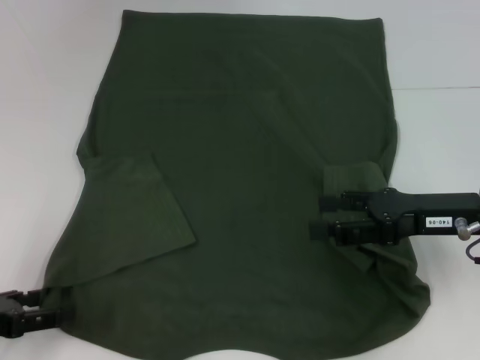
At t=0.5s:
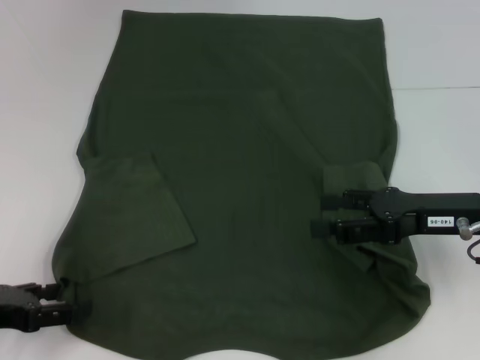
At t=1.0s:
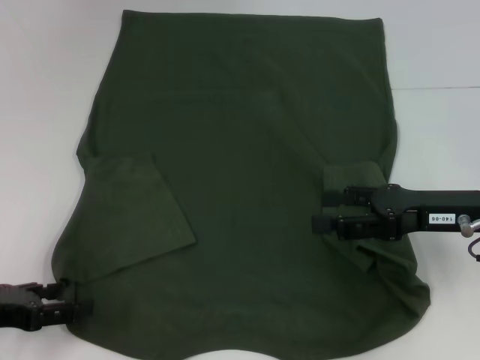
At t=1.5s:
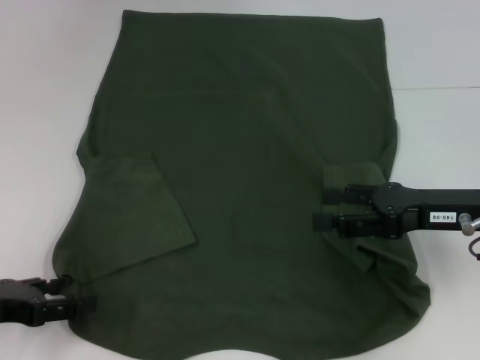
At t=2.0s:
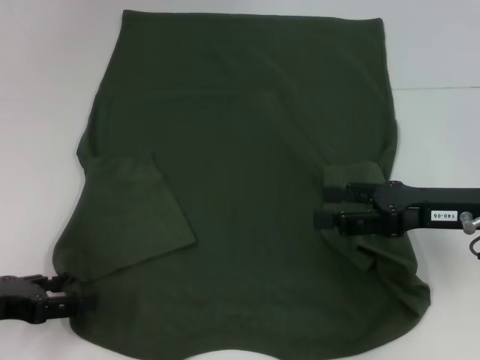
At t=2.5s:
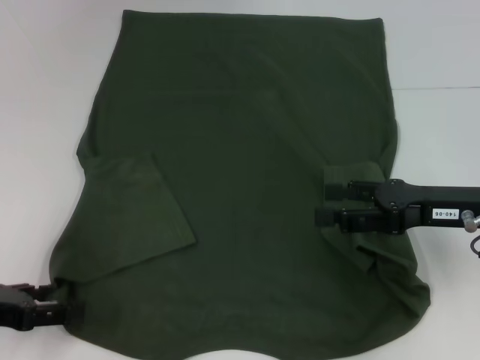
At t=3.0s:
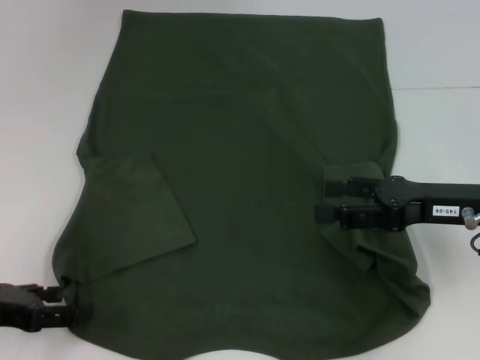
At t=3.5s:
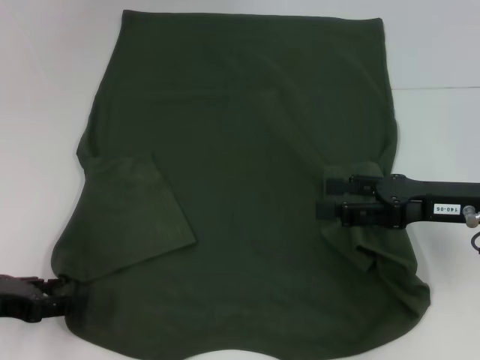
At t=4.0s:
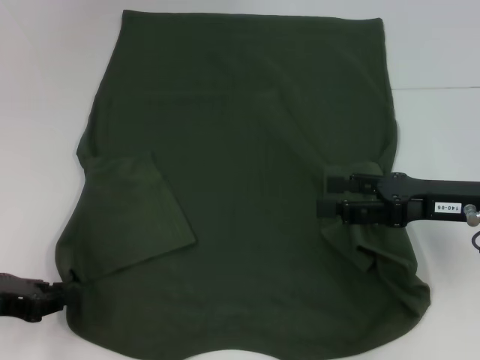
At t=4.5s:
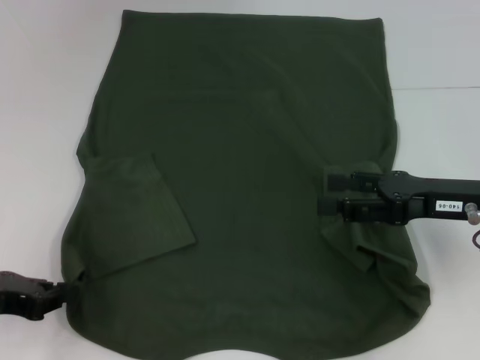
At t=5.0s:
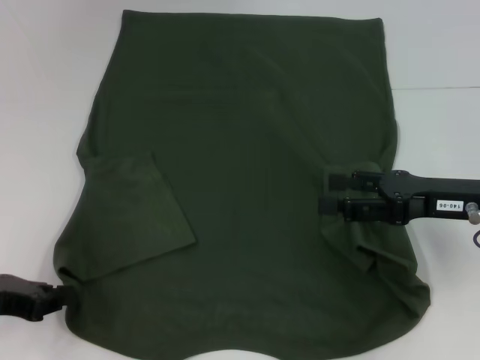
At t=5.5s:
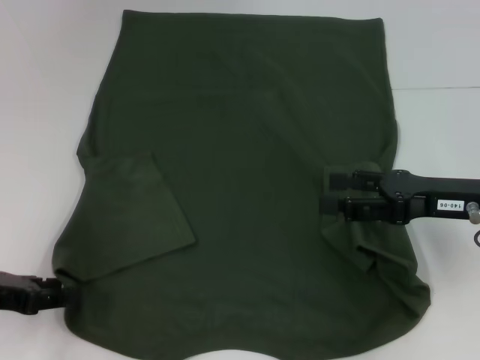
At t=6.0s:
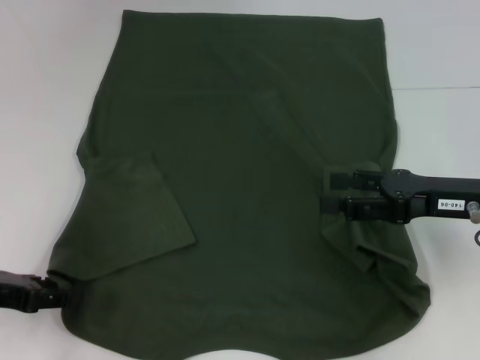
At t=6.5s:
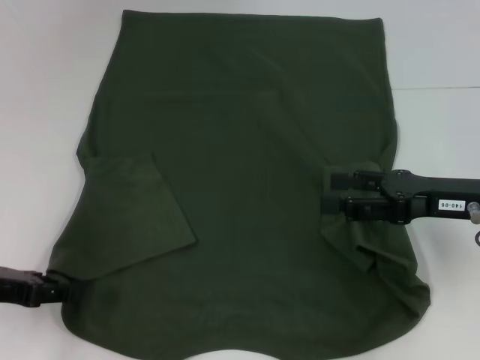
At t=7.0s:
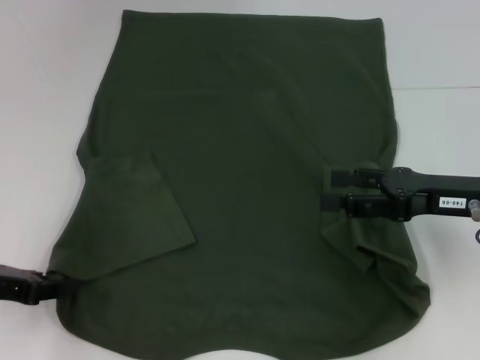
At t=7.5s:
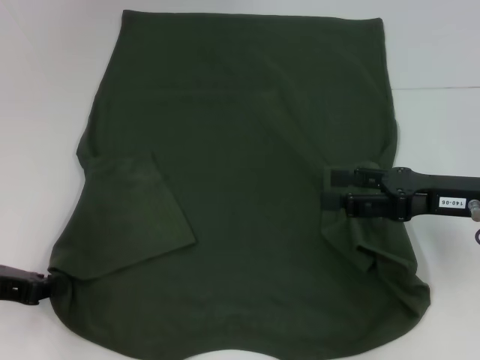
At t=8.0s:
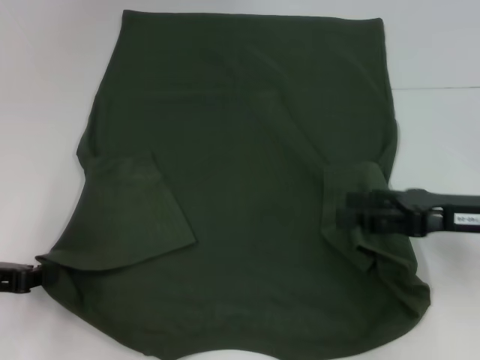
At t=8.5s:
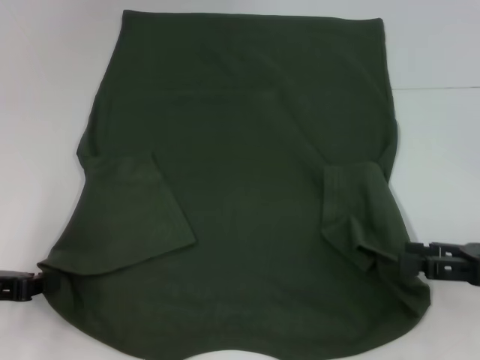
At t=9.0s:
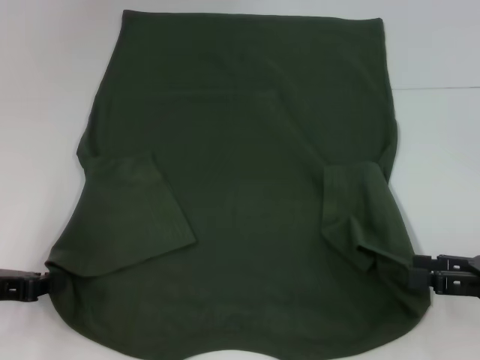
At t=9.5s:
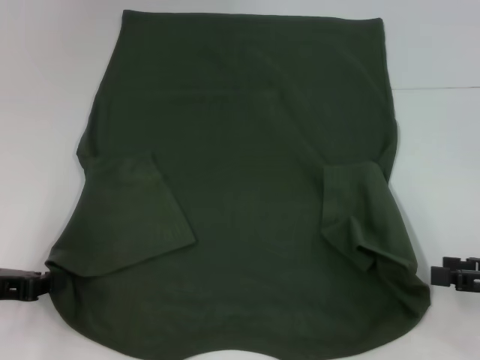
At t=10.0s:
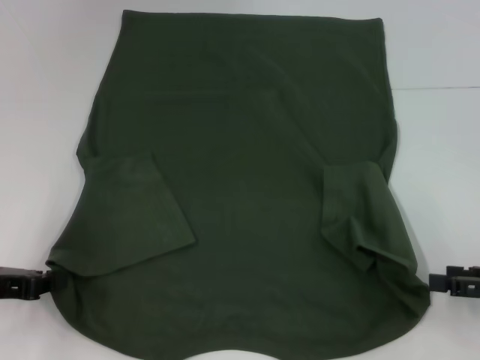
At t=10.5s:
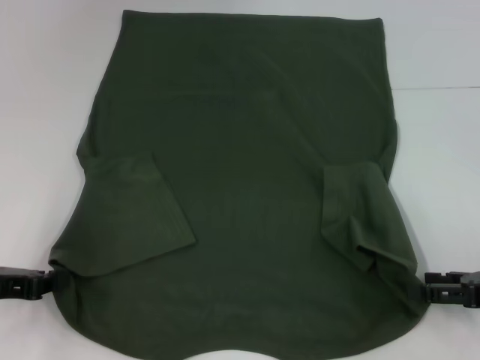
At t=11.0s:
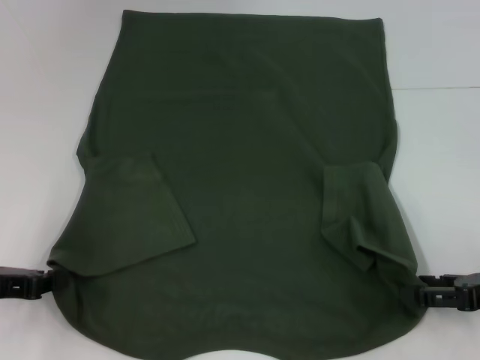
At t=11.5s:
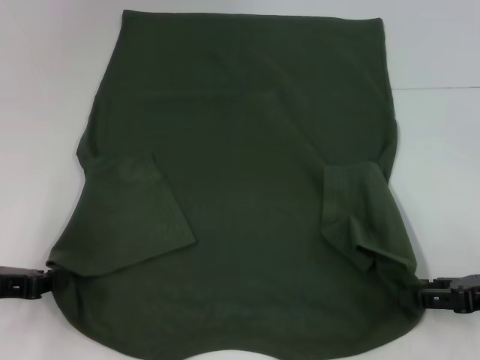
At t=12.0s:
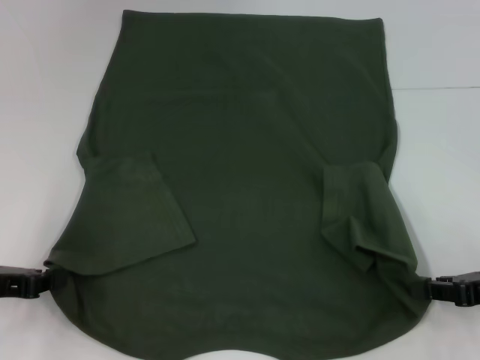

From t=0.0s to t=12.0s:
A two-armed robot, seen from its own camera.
Step, from t=0.0s to t=5.0s: Grab the bottom left corner with your left hand.
From t=0.0s to t=2.0s: There are only small adjustments of the grippers.
From t=2.0s to t=4.0s: The left gripper closes up.
From t=4.0s to t=6.0s: The grippers move only a little.
From t=6.0s to t=8.0s: The left gripper closes.
From t=8.0s to t=10.0s: The right gripper shifts about 10 cm to the right and backward.
From t=10.0s to t=12.0s: The right gripper closes up.

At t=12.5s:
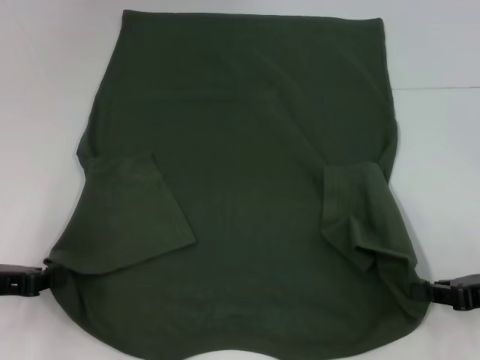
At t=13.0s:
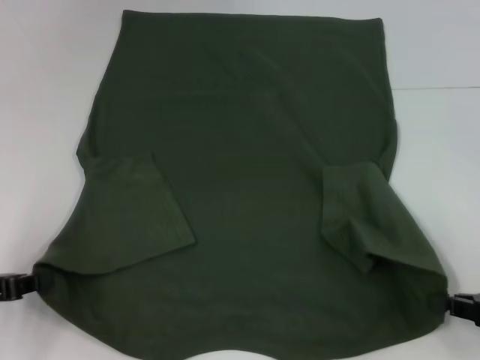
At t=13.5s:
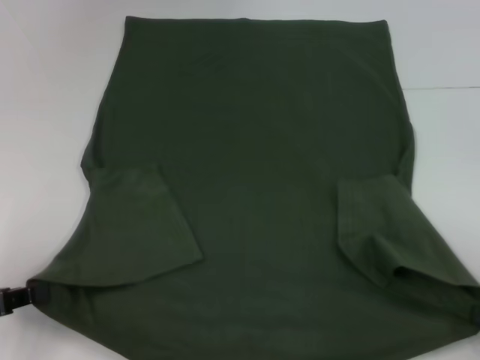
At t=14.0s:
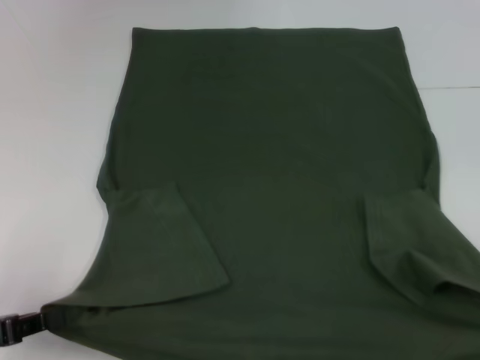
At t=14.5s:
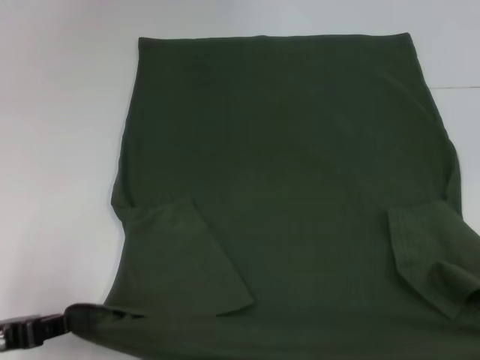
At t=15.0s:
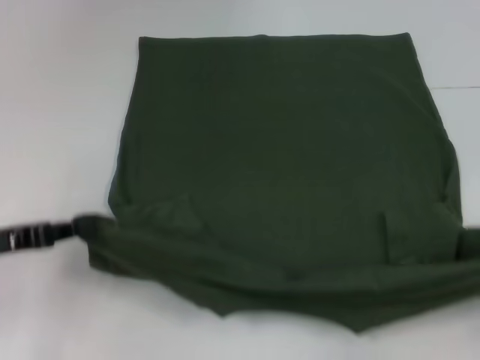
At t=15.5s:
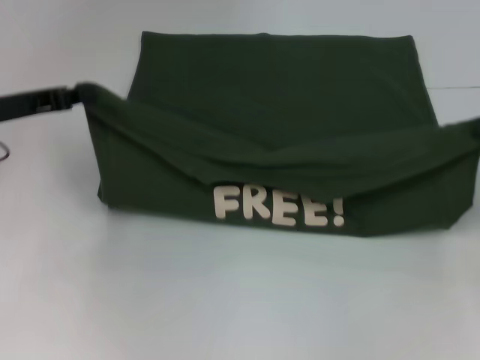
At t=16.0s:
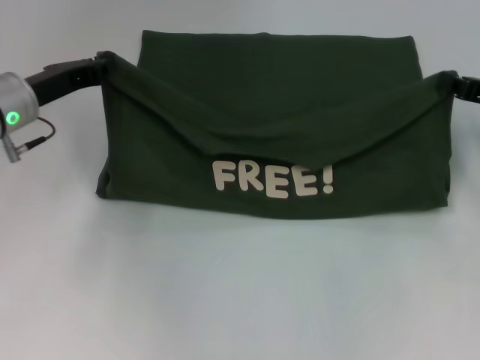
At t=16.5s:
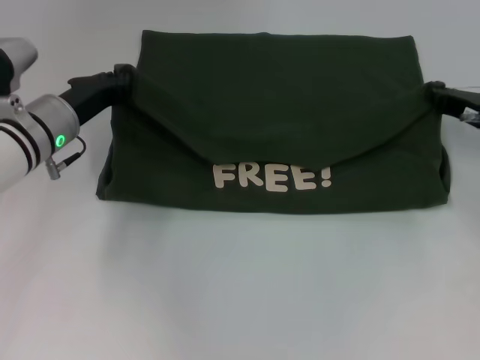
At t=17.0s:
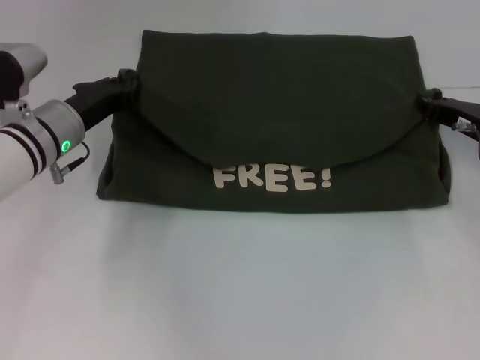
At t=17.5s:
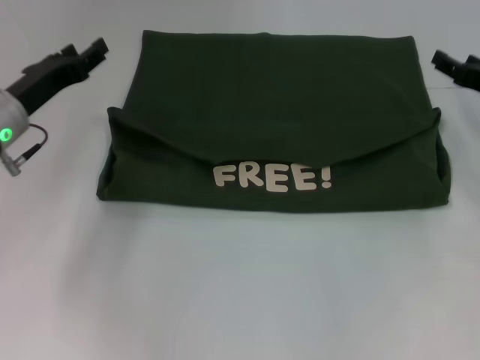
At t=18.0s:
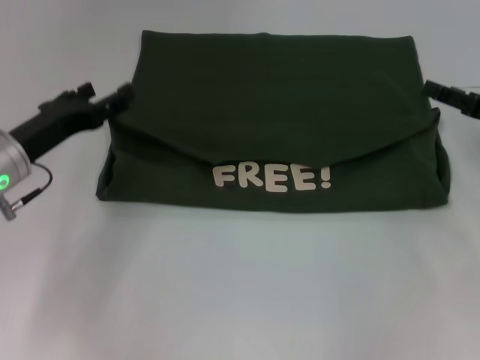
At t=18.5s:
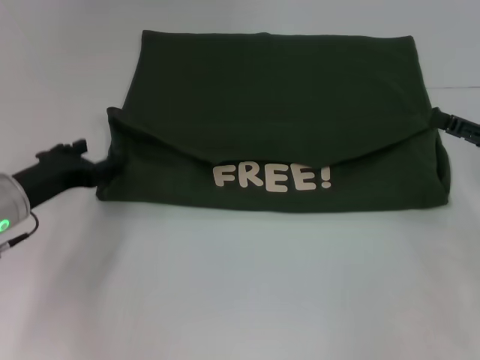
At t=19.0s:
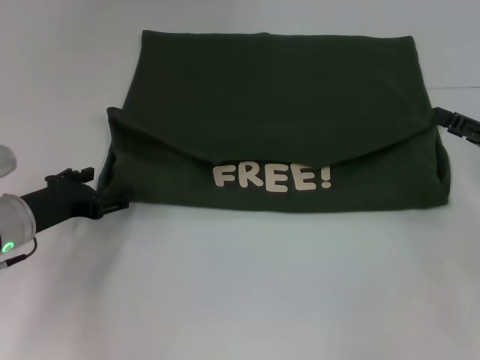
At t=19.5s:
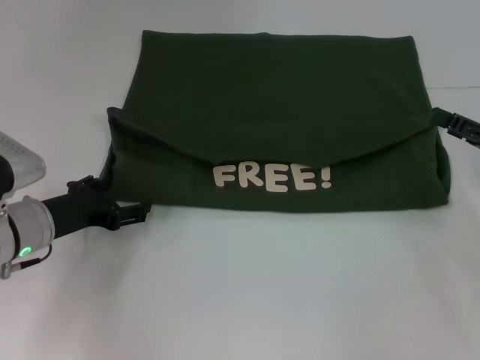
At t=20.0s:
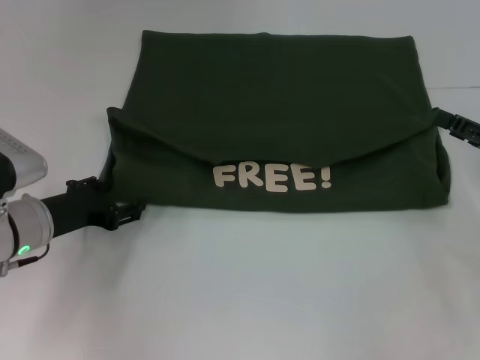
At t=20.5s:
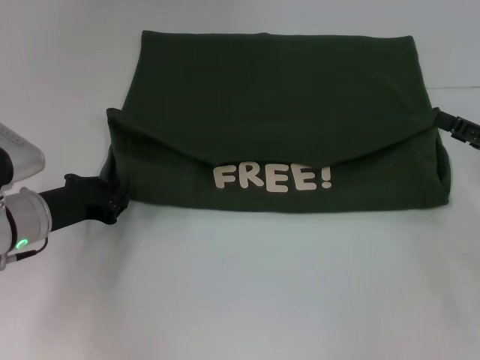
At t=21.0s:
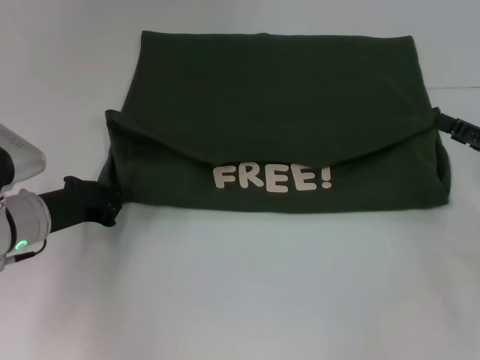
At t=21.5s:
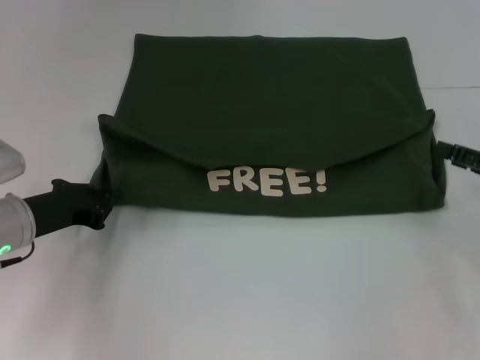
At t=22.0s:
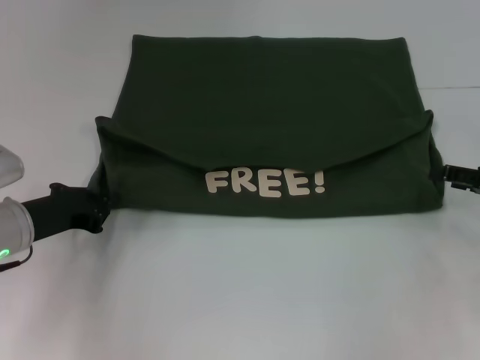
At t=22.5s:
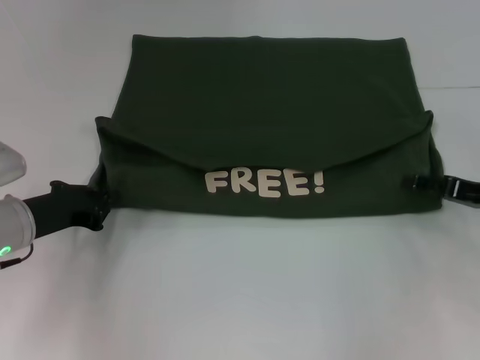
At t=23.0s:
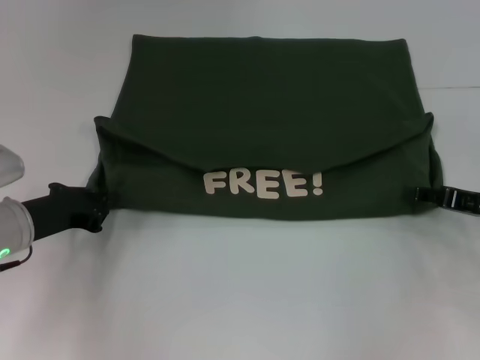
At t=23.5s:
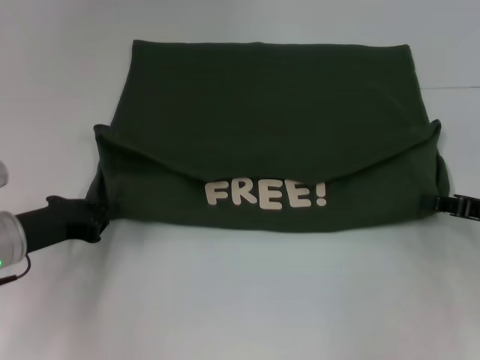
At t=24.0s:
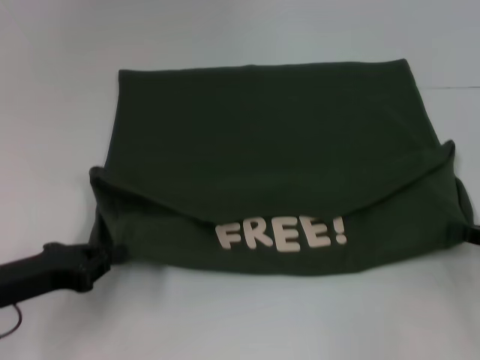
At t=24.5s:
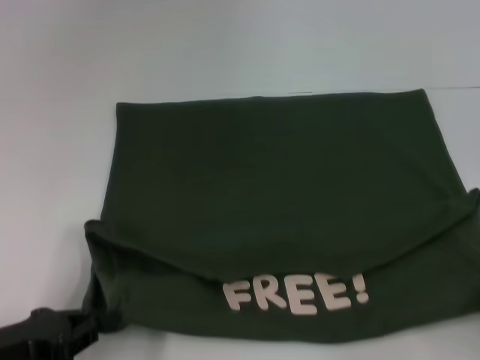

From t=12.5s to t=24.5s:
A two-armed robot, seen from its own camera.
Step, from t=13.0s to t=17.0s: Fold the clothes with your left hand.
Step, from t=13.0s to t=17.0s: Fold the clothes with your right hand.
From t=12.5s to t=14.5s: The left gripper is displaced backward by roughly 5 cm. The right gripper is displaced backward and to the right by approximately 15 cm.
From t=14.5s to t=16.5s: The right gripper heads forward and to the left, covering roughly 30 cm. Meanwhile the left gripper heads forward and to the right, covering roughly 25 cm.
From t=16.5s to t=18.5s: The right gripper moves backward, approximately 10 cm, and opens its fingers; the left gripper goes about 10 cm backward and to the left, and opens.
From t=18.5s to t=20.5s: The left gripper closes its fingers.
From t=20.5s to t=22.5s: The left gripper closes up.
From t=22.5s to t=24.5s: The right gripper heads backward and to the right, covering some 15 cm, and closes up, while the left gripper travels backward by roughly 15 cm.

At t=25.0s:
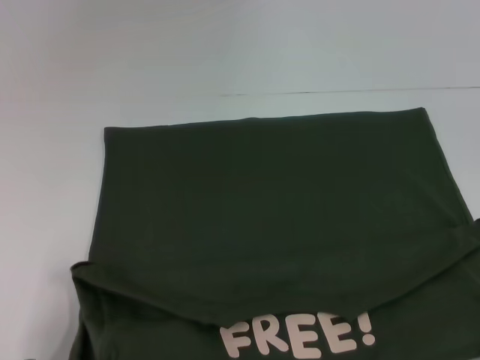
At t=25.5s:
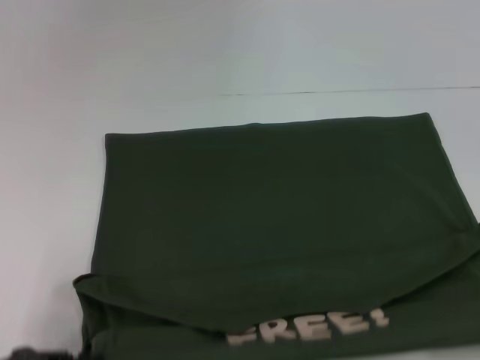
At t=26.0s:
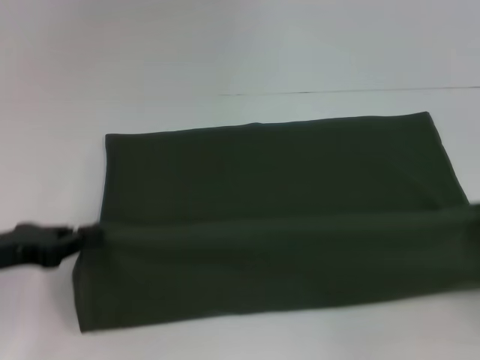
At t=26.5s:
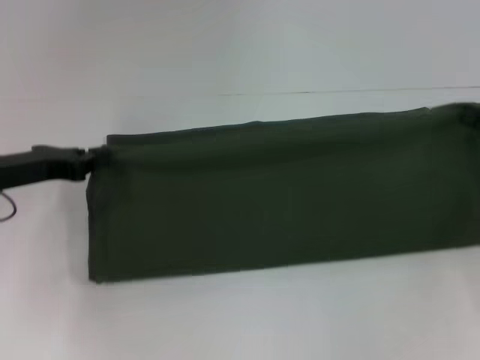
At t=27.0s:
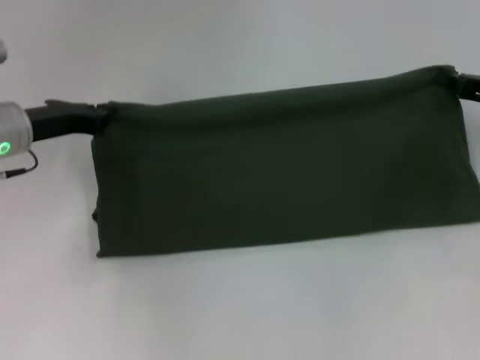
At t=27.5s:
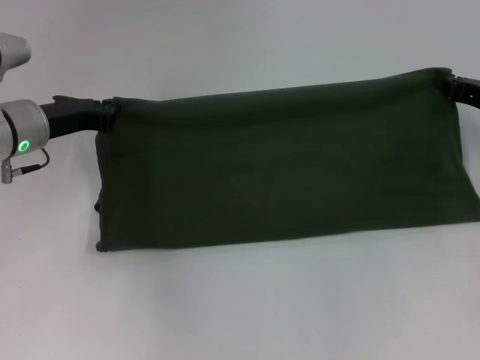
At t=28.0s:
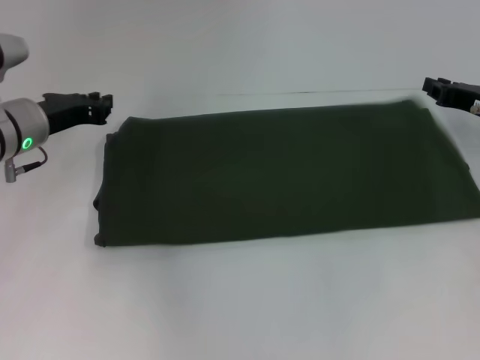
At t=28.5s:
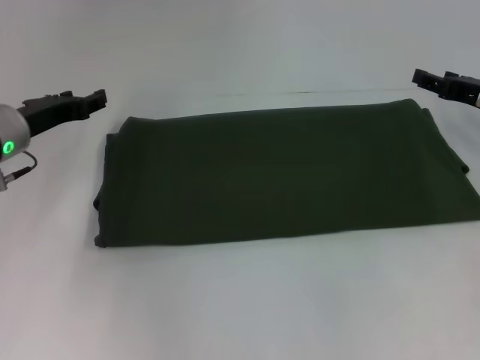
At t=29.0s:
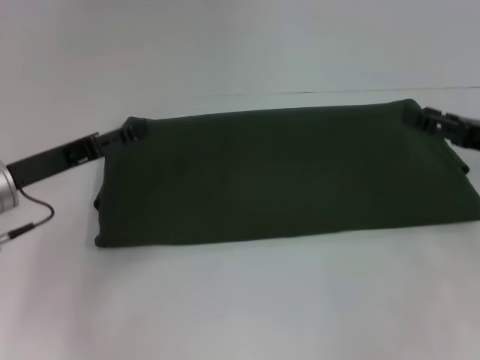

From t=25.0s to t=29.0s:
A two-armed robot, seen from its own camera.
Step, from t=25.5s to t=27.5s: Fold the clothes with your right hand.
From t=25.0s to t=27.0s: Both grippers move forward, about 25 cm.
From t=27.0s to t=29.0s: The grippers both shift backward by approximately 5 cm. The left gripper opens; the right gripper opens its fingers.
